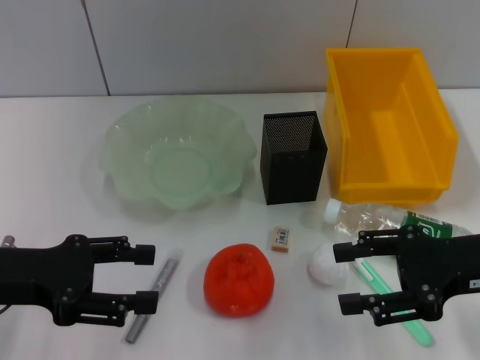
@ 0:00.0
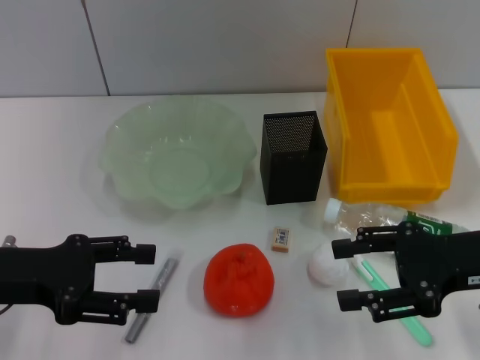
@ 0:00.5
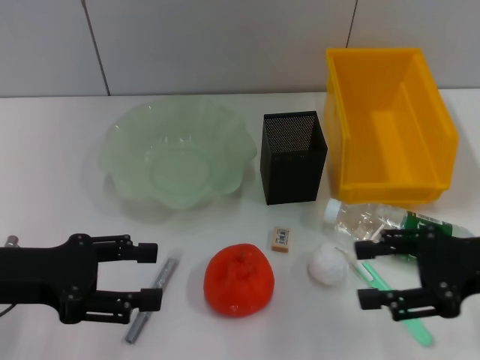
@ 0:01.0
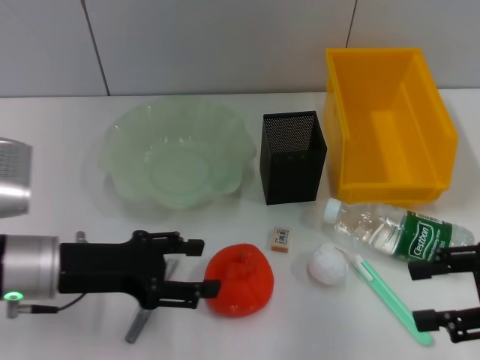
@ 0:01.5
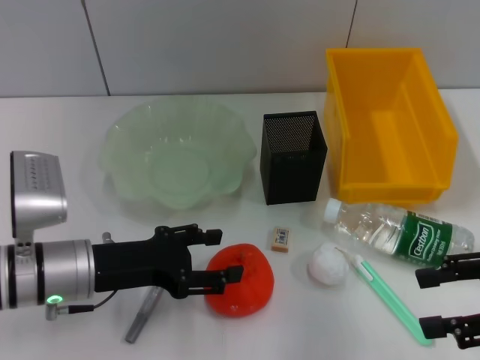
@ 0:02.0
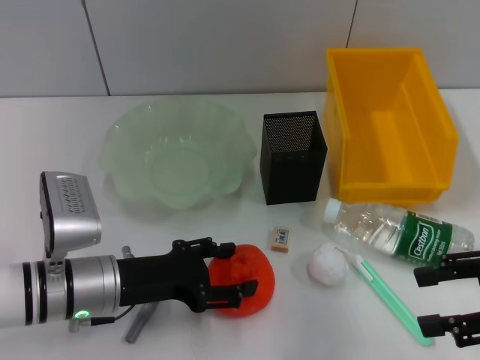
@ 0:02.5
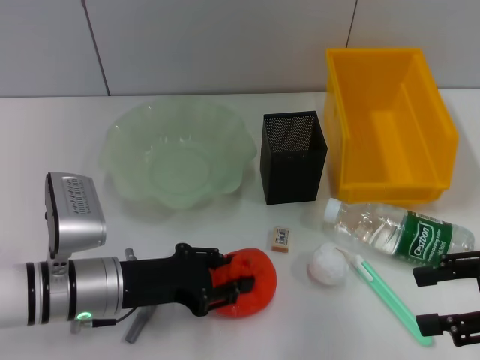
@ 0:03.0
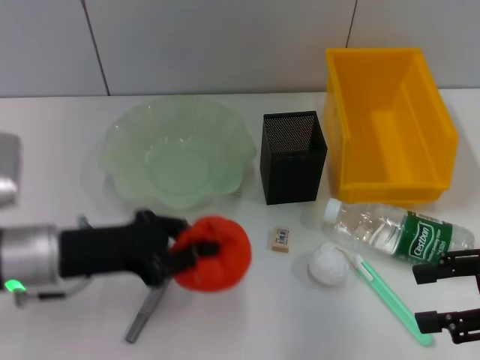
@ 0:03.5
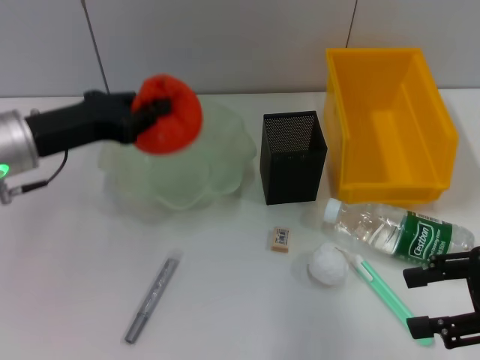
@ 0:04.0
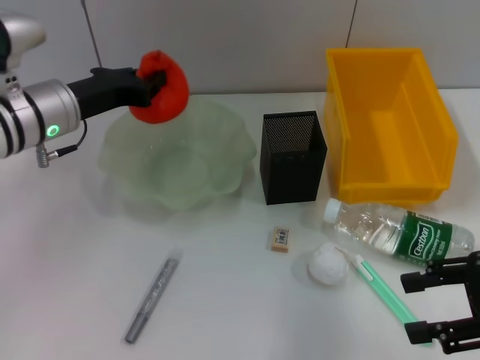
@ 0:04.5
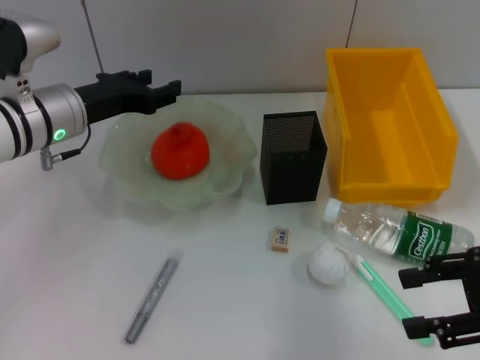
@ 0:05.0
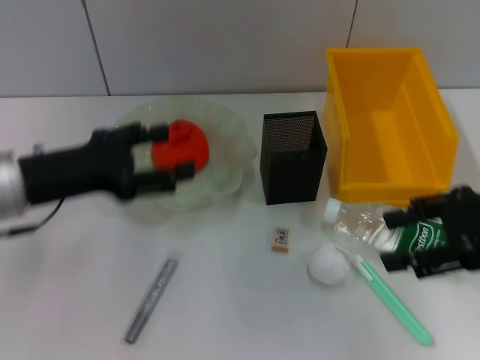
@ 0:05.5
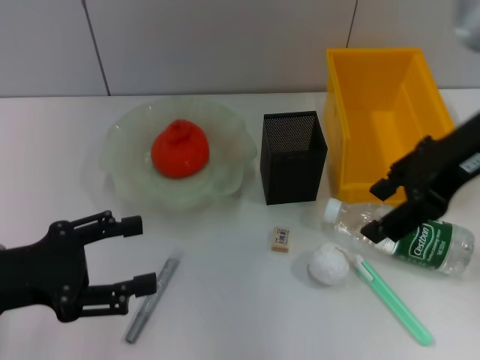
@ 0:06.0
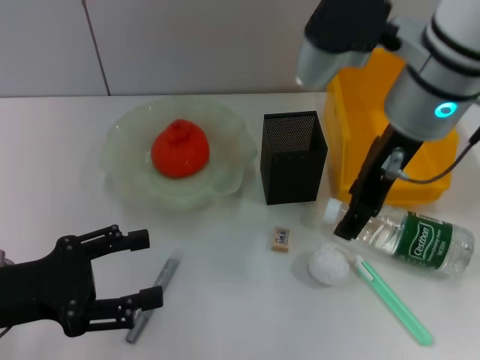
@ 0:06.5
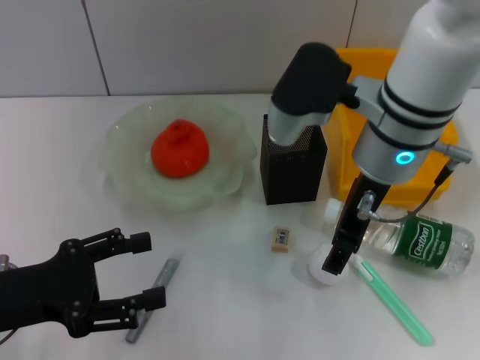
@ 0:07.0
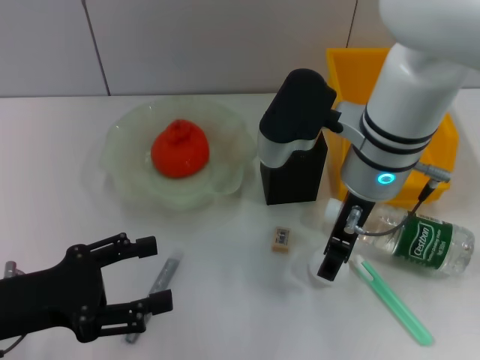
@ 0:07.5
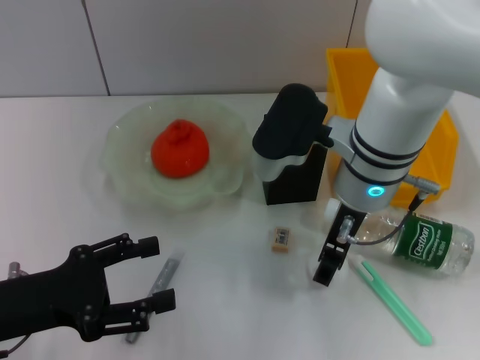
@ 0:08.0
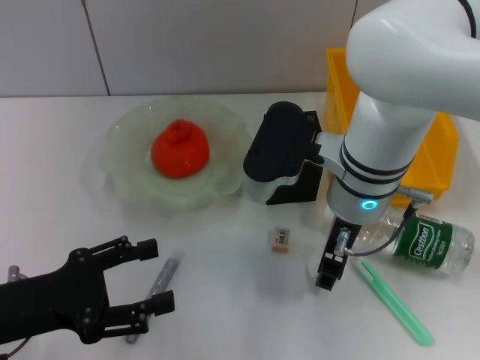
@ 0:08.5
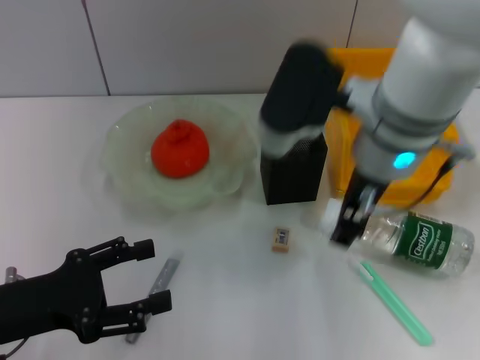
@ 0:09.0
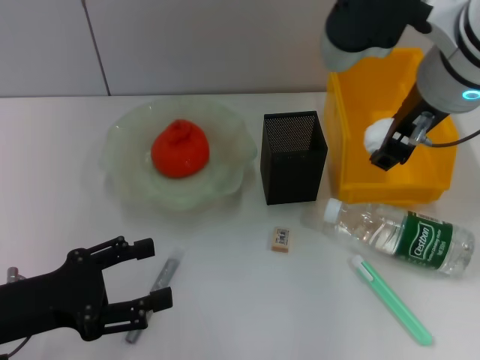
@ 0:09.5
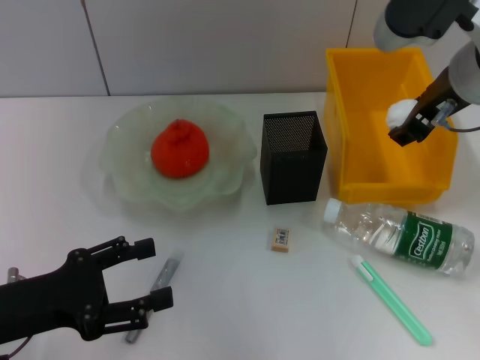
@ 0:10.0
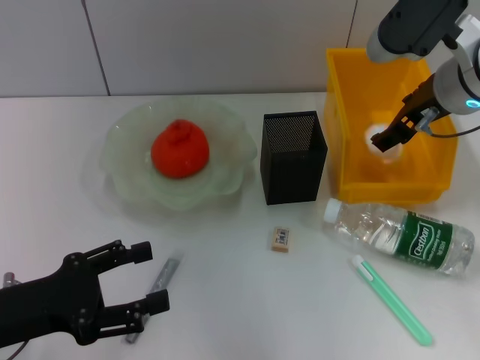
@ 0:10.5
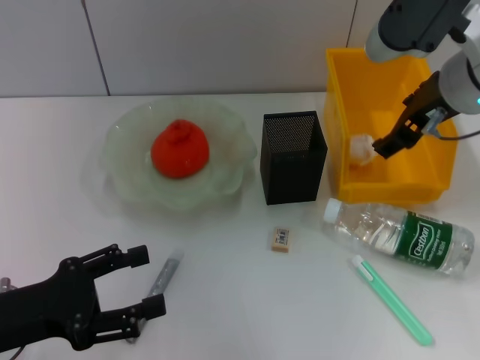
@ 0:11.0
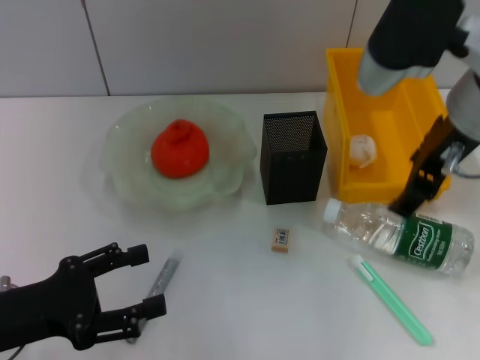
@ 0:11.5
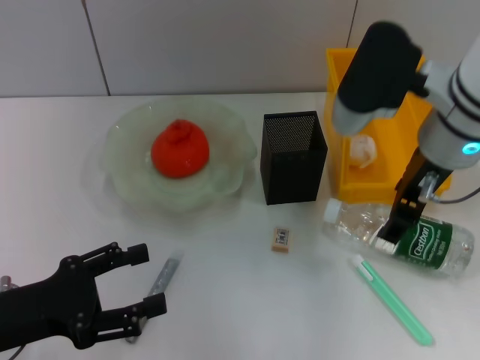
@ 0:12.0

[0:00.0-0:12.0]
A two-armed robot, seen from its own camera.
Step, 0:00.0 to 0:03.0: Grab the orange with the left hand.
Step, 0:03.5 to 0:05.0: Place the orange into the fruit bowl with the left hand.
Step, 0:05.5 to 0:08.0: Grab the paper ball with the right hand.
Step, 0:09.0 to 0:10.5: Place the paper ball into the trash can with the right hand.
0:00.0 to 0:02.0: The left gripper moves to the right and downward, some 10 cm; the right gripper heads to the right, covering roughly 5 cm.
0:02.0 to 0:04.0: The left gripper travels upward and forward by approximately 10 cm, and closes.
0:04.0 to 0:06.0: The left gripper moves backward, approximately 10 cm, and opens its fingers. Meanwhile the right gripper shifts some 20 cm upward, to the left and forward.
0:06.0 to 0:08.0: The right gripper goes some 15 cm downward and to the left.
0:08.0 to 0:10.0: The right gripper shifts roughly 15 cm to the right and upward.
0:10.0 to 0:12.0: The right gripper shifts by approximately 5 cm.

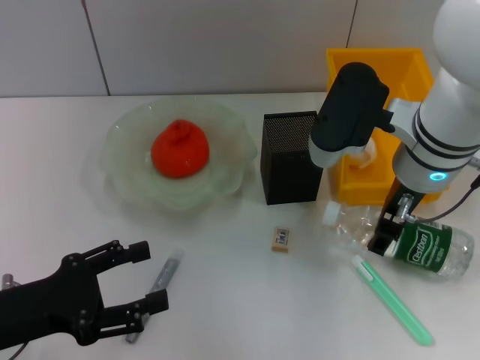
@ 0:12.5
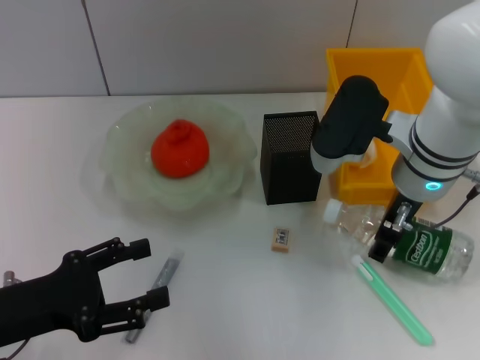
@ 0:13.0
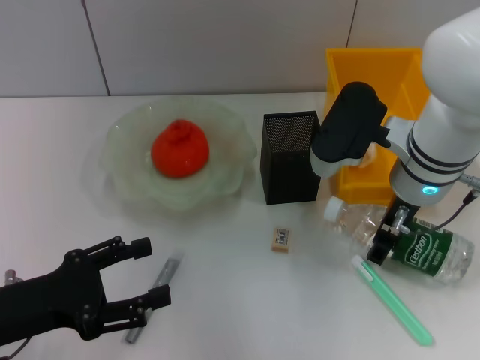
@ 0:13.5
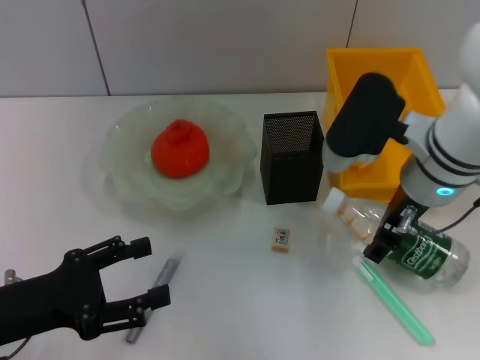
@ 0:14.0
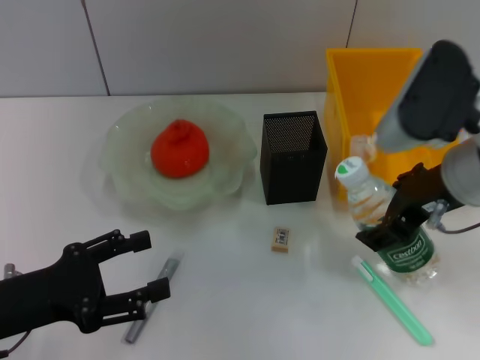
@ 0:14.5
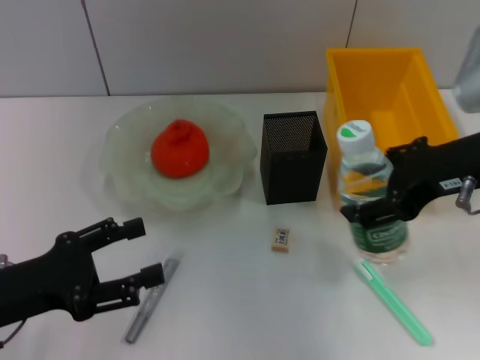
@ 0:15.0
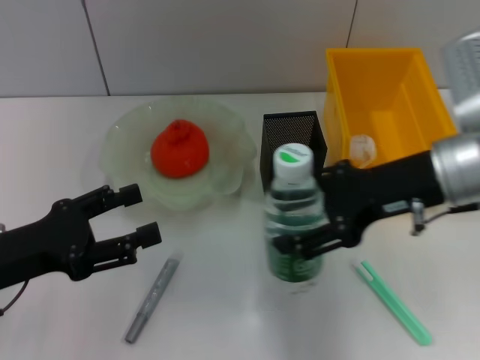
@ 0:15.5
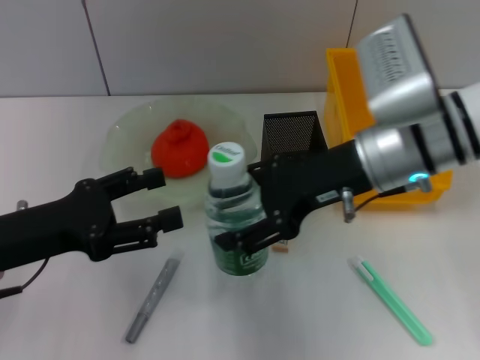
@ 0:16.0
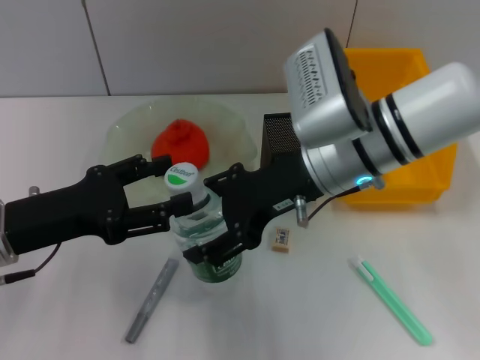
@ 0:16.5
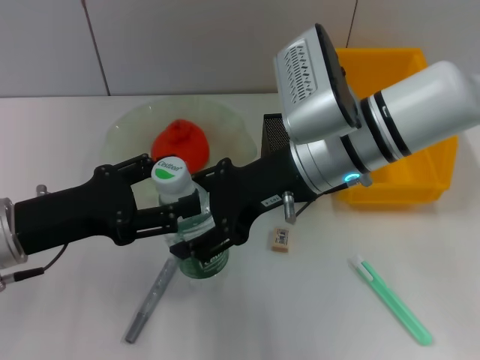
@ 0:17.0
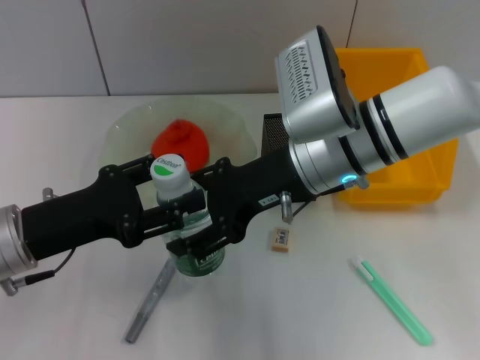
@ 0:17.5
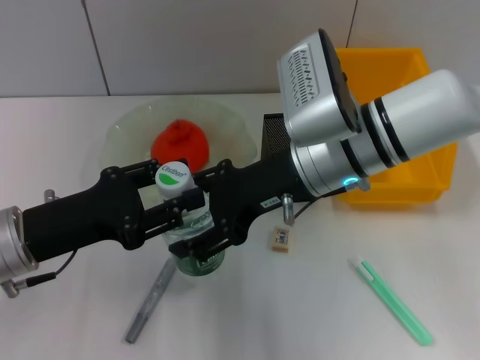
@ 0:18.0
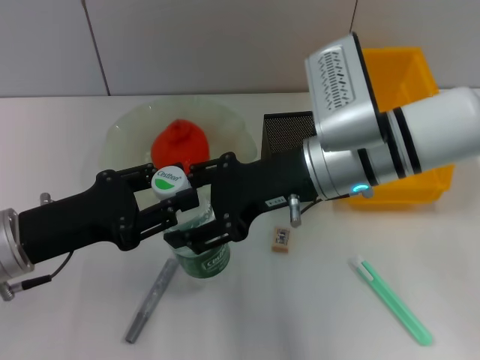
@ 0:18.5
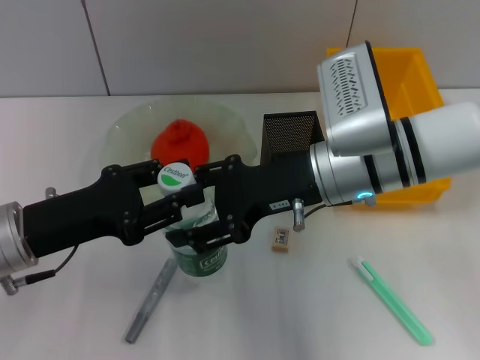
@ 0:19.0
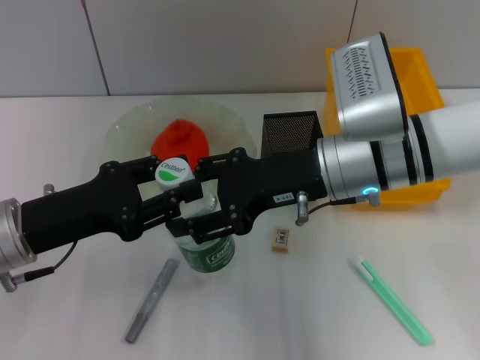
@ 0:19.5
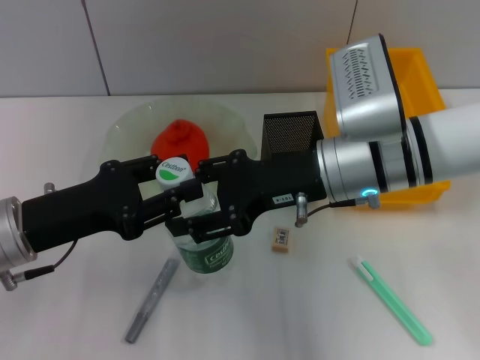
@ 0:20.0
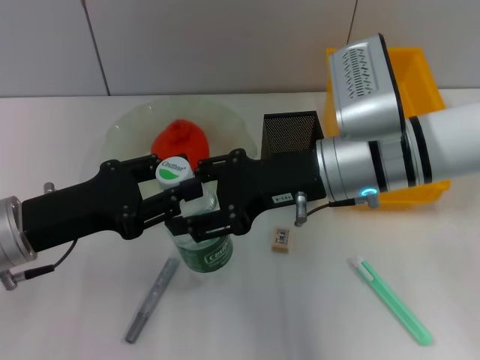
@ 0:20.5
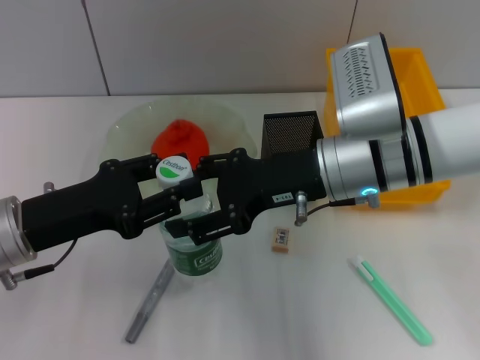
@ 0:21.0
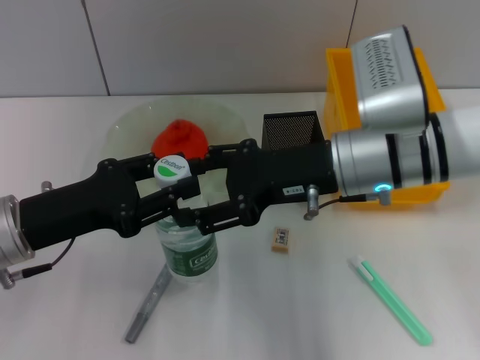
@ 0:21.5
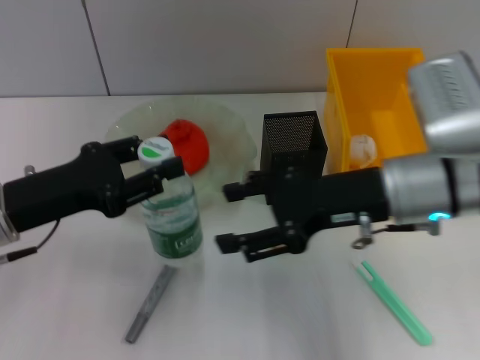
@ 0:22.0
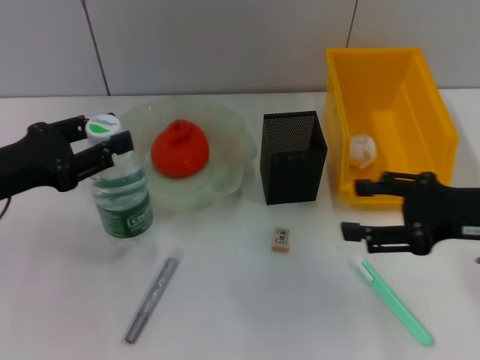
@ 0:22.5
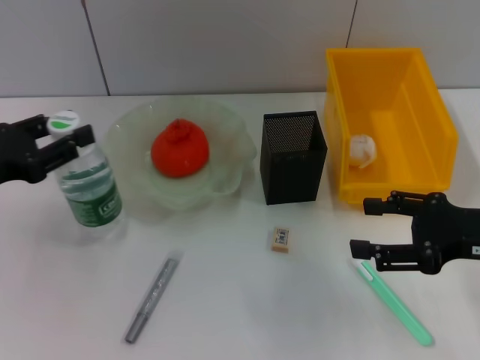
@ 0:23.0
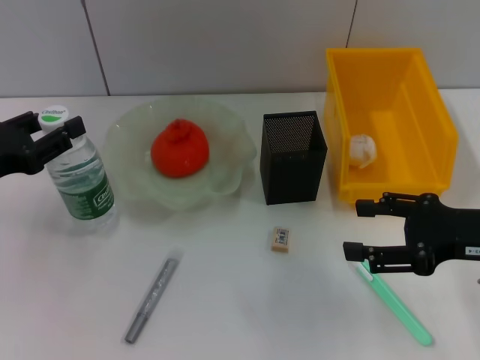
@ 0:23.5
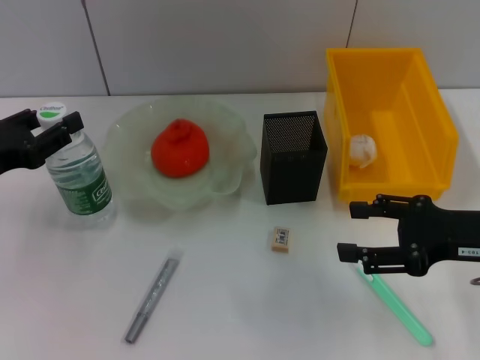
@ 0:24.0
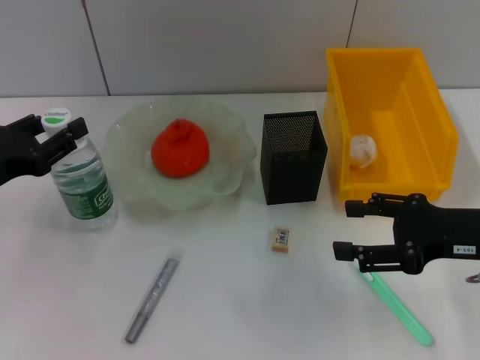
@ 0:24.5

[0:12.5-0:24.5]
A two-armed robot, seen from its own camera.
Step, 0:14.0 to 0:21.5: Pass the water bottle from the right hand to the left hand.
0:12.5 to 0:14.5: The right gripper shifts by about 5 cm.
0:14.5 to 0:16.5: The right gripper is displaced to the left by about 10 cm, while the left gripper is displaced forward by approximately 5 cm.
0:16.5 to 0:18.5: The left gripper closes its fingers.
0:18.5 to 0:20.5: The grippers stay close to where they were, moving slightly.
0:20.5 to 0:22.5: The left gripper shifts by roughly 5 cm. The right gripper moves to the right, roughly 15 cm.

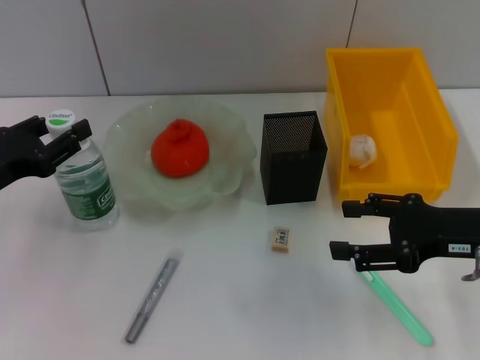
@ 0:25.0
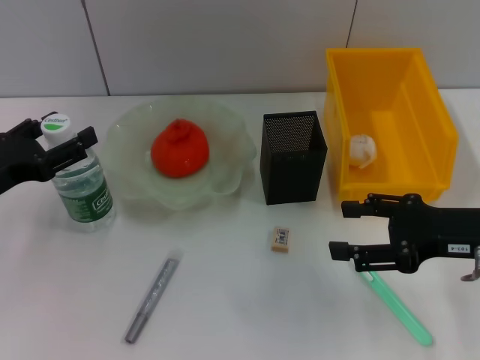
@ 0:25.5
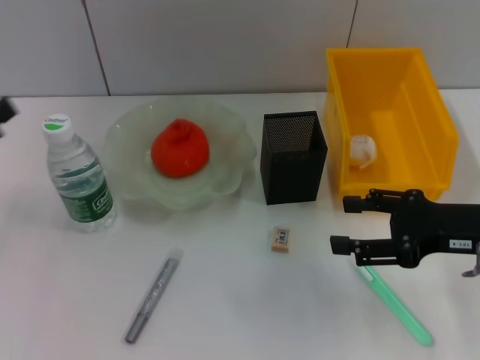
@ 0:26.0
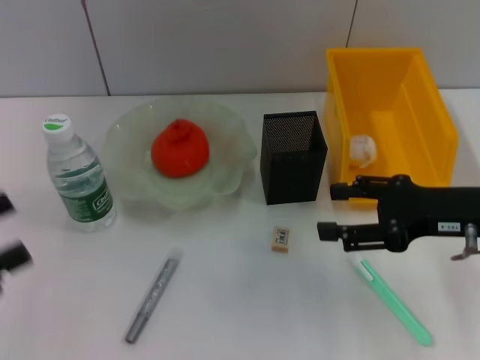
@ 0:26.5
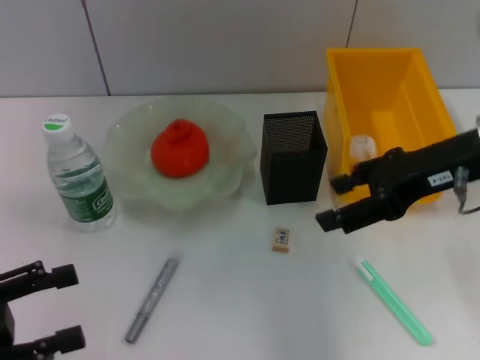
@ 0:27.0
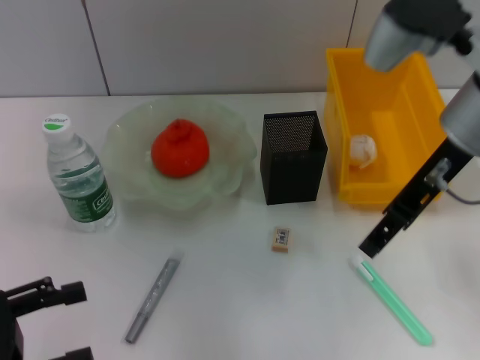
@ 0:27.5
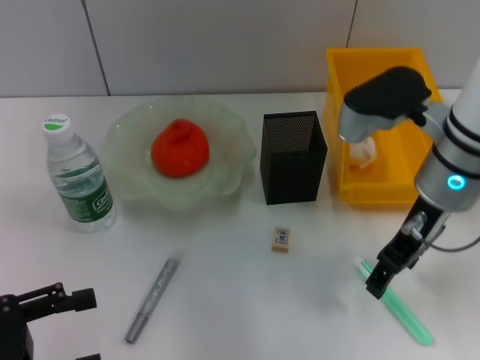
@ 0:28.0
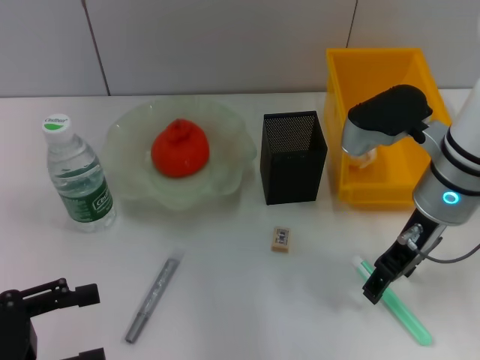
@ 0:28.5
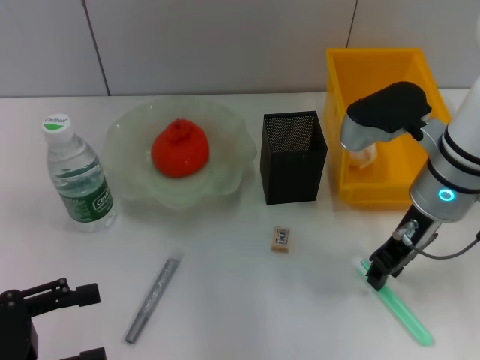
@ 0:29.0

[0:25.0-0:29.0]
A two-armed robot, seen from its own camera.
0:25.0 to 0:27.0: The left gripper travels backward by roughly 10 cm, and opens its fingers; the right gripper heads upward, covering some 10 cm.
0:27.0 to 0:29.0: The right gripper moves downward, roughly 5 cm.
